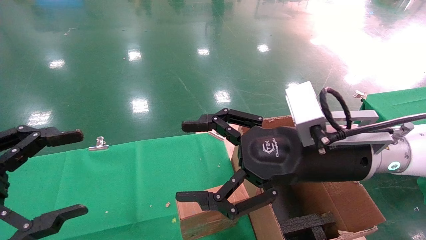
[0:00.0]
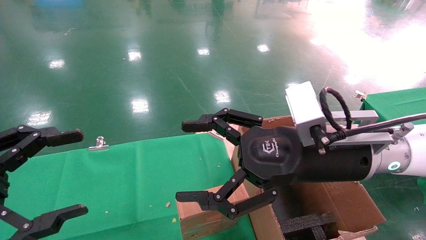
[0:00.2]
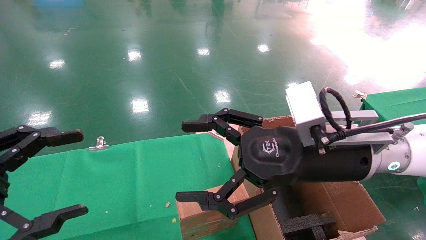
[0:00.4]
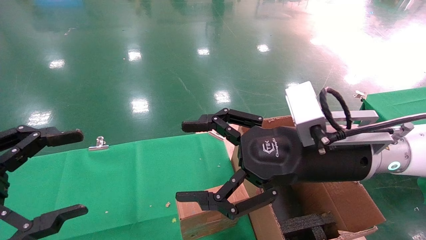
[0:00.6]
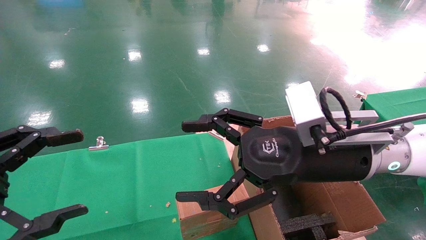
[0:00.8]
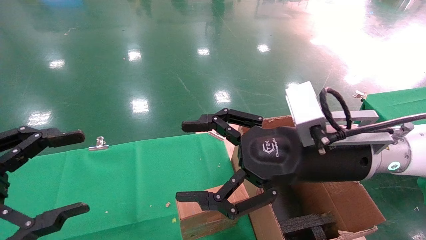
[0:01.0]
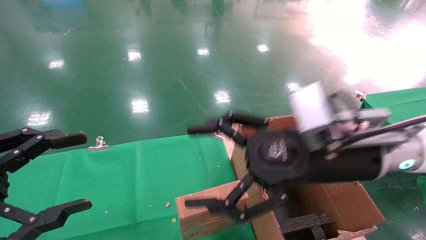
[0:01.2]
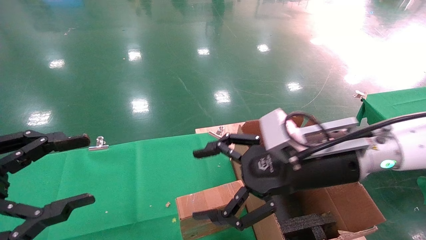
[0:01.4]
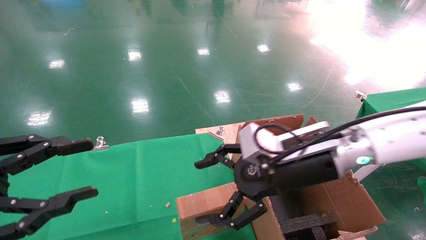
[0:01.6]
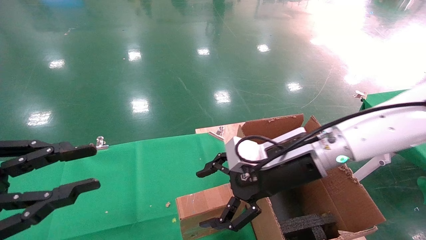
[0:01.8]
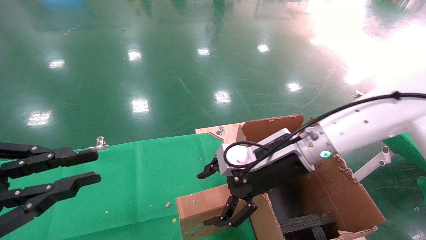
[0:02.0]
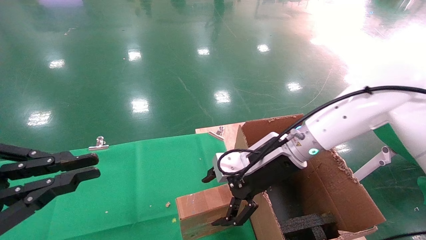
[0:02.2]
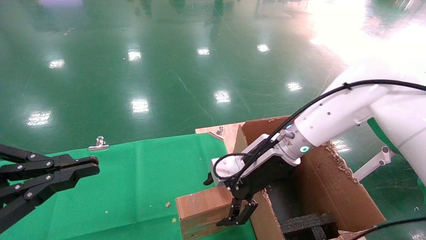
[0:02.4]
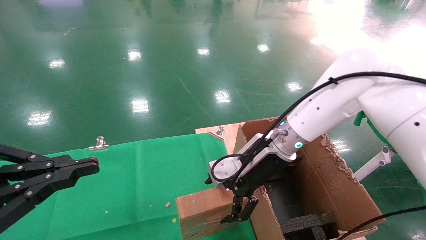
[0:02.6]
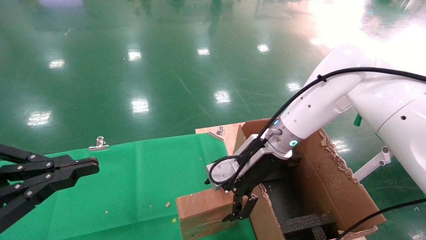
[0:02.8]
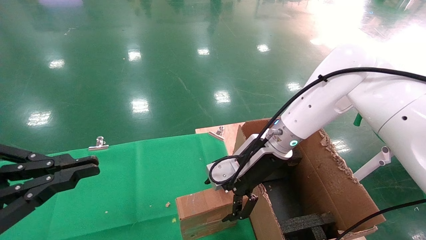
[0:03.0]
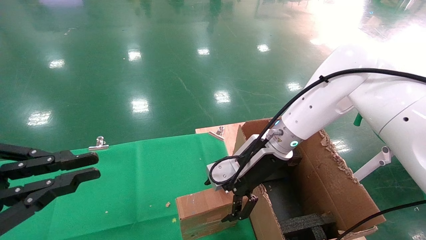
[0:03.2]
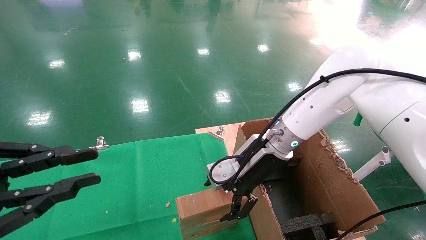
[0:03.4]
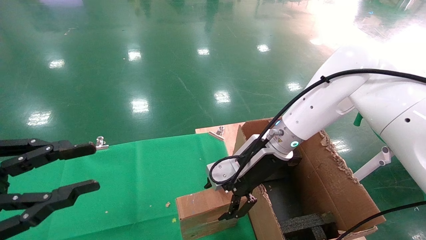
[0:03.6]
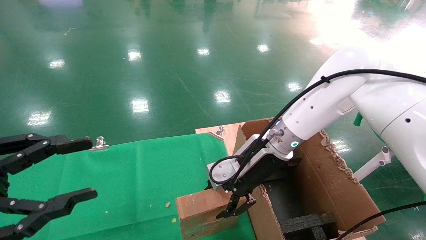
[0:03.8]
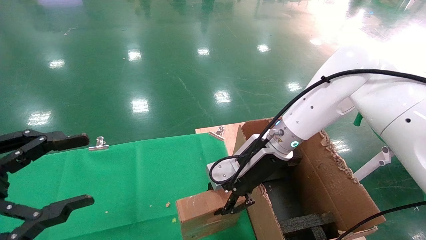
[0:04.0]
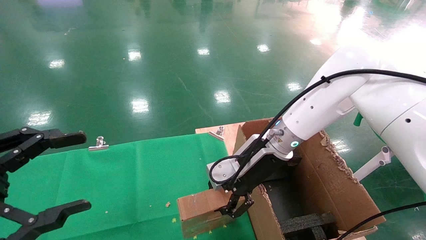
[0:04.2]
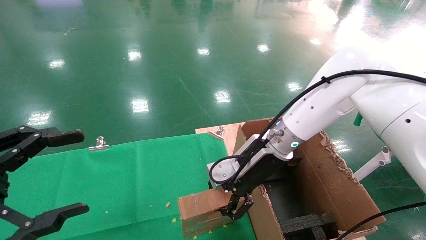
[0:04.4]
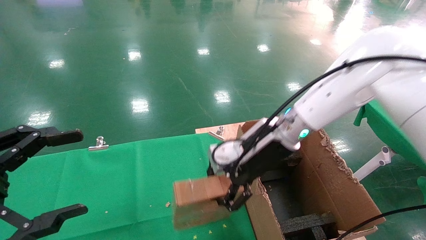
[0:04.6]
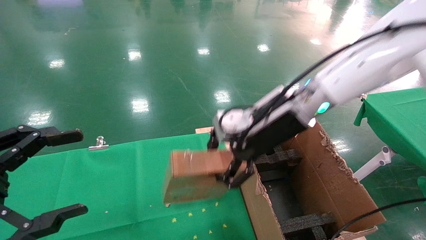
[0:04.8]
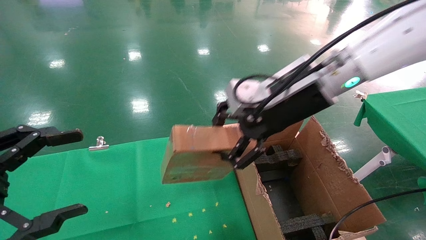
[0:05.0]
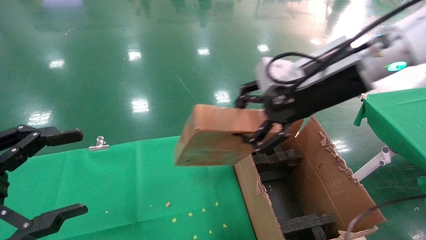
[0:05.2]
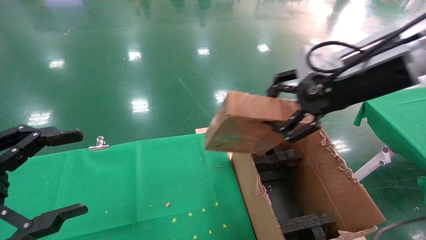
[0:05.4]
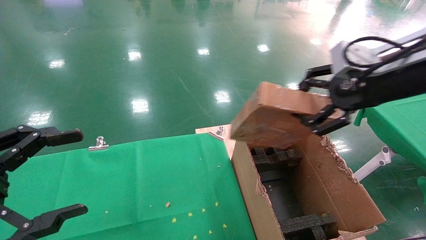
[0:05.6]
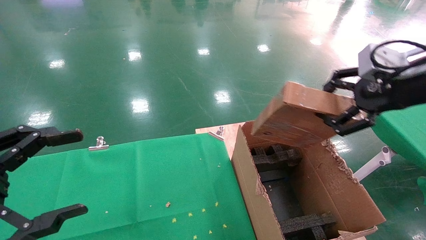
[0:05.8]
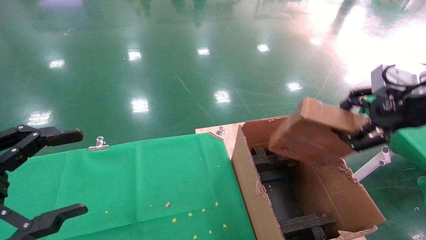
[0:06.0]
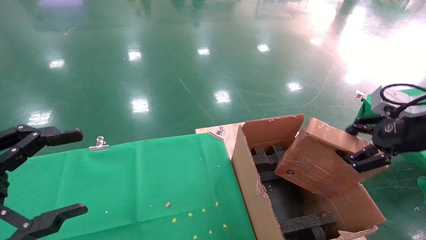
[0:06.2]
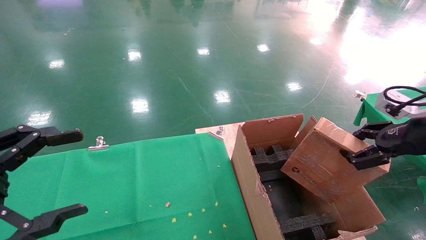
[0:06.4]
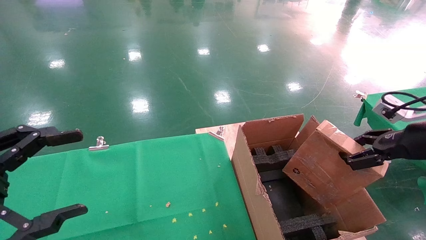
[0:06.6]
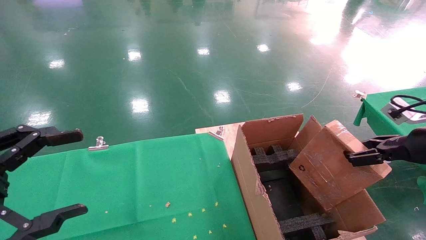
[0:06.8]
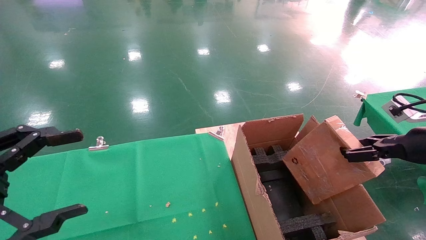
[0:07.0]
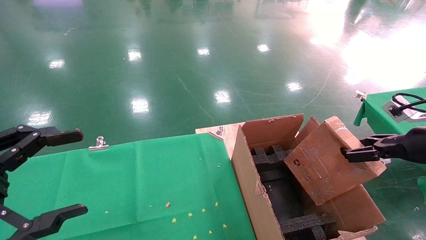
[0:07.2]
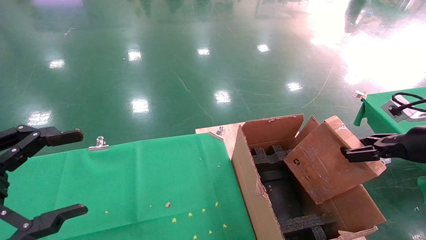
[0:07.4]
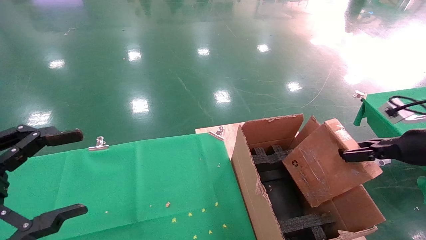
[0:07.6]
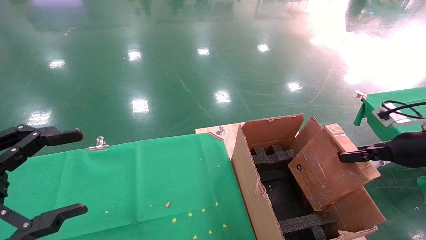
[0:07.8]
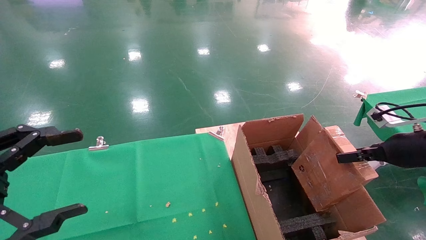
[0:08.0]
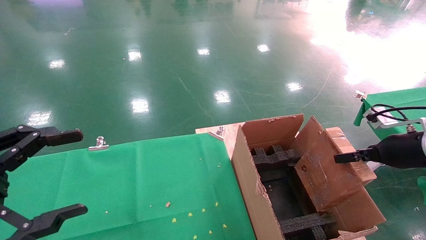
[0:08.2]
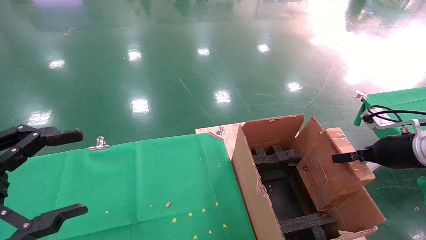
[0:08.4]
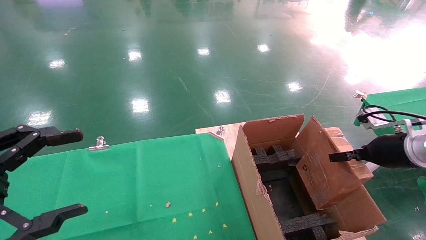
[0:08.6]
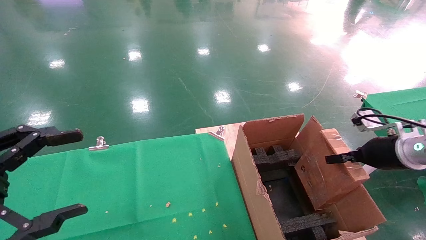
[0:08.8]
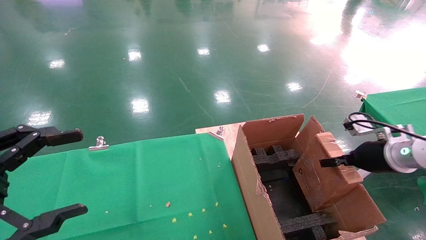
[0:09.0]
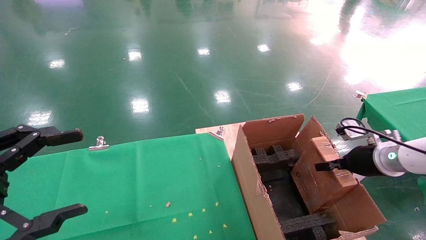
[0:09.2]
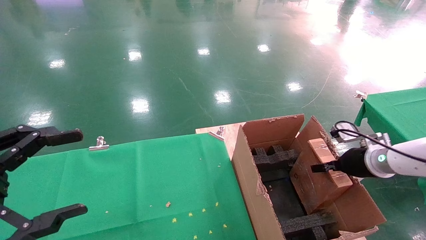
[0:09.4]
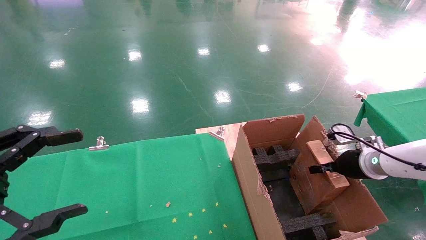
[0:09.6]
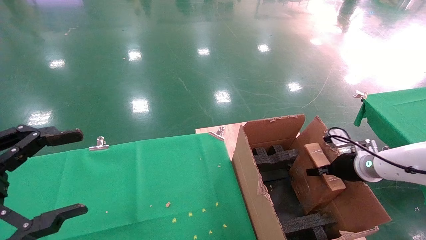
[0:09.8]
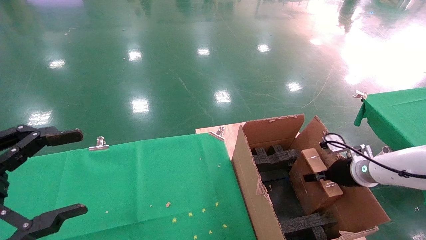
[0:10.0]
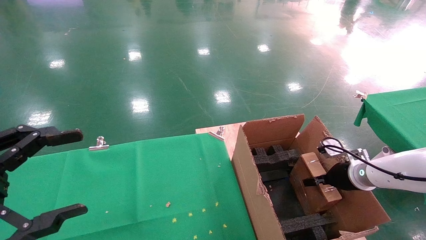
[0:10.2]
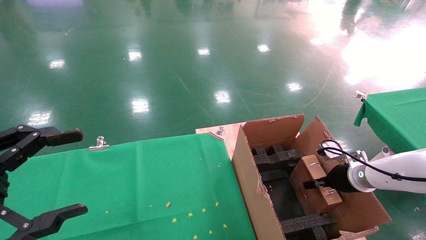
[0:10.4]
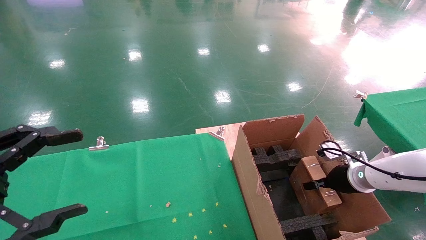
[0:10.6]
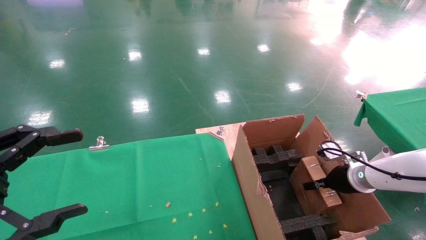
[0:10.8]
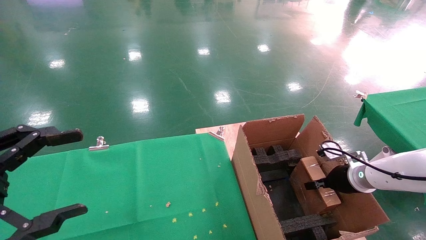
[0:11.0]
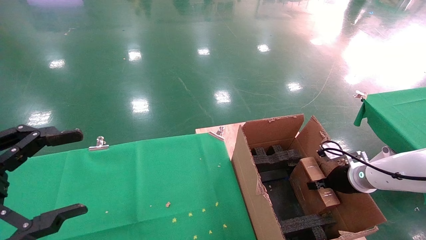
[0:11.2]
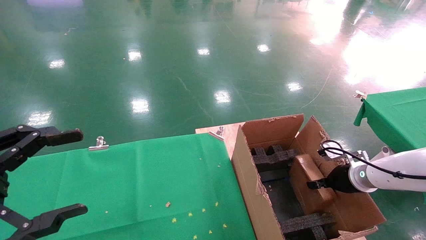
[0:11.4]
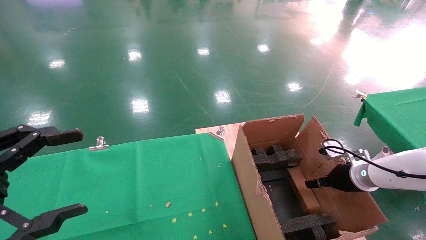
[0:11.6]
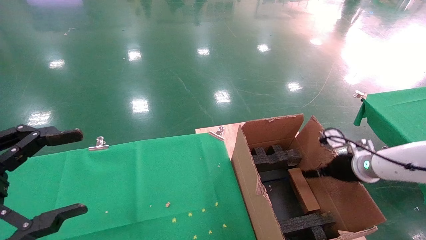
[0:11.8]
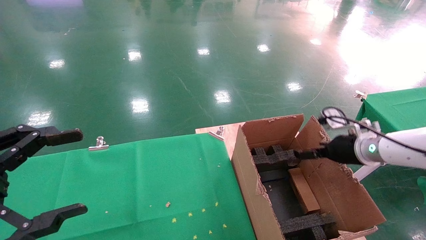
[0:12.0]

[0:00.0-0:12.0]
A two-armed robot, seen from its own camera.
Task of the whole recording: using a robotic arm to pick up a cardboard box and palace it the carton.
Step, 0:01.4 to 0:04.2: Pick up the mouse and the power cord paper box.
0:00.0 to 0:01.6: The right gripper moves approximately 5 cm.
0:01.6 to 0:03.0: The right gripper is displaced forward by about 10 cm. Meanwhile the left gripper closes its fingers.
0:03.0 to 0:04.4: The left gripper opens its fingers; the right gripper closes up.
0:04.4 to 0:06.0: The right gripper heads to the right, backward and upward, covering approximately 30 cm.
0:06.0 to 0:07.6: The right gripper is displaced downward and to the right by some 10 cm.
0:07.6 to 0:09.0: The right gripper goes approximately 10 cm forward, downward and to the left.
0:09.0 to 0:10.4: The right gripper travels downward by about 10 cm.
0:10.4 to 0:12.0: The right gripper travels upward by approximately 10 cm, and opens up.

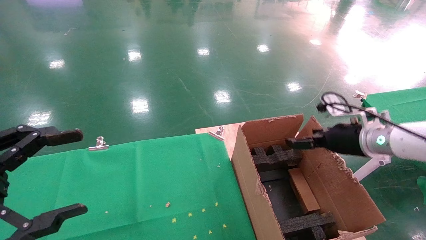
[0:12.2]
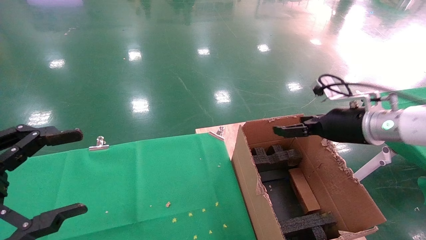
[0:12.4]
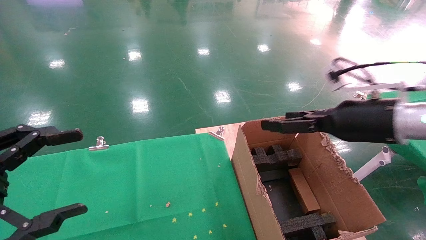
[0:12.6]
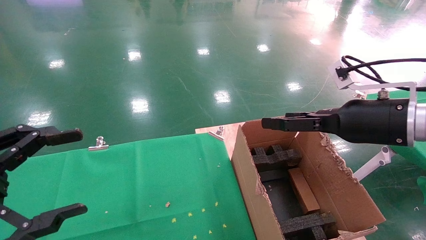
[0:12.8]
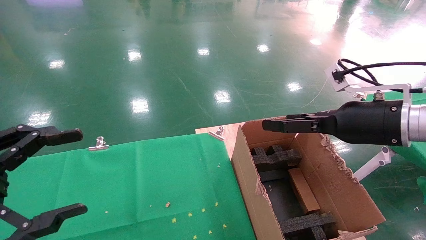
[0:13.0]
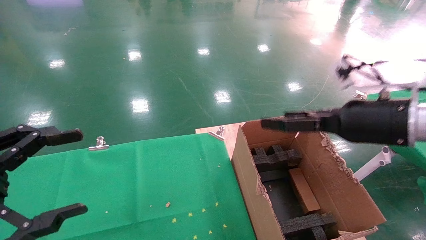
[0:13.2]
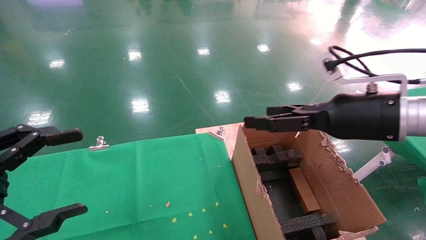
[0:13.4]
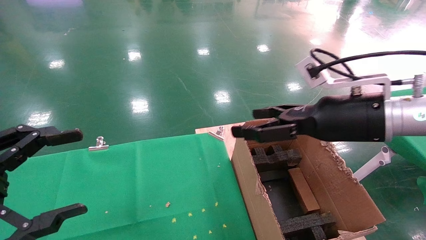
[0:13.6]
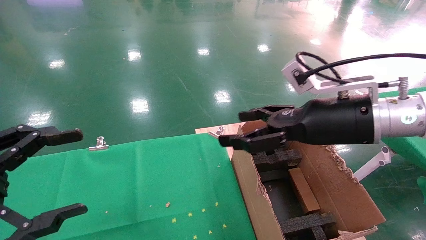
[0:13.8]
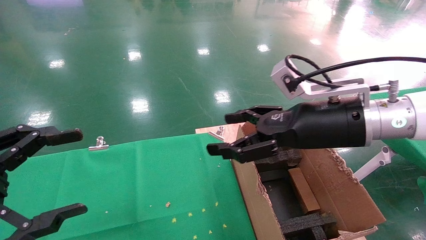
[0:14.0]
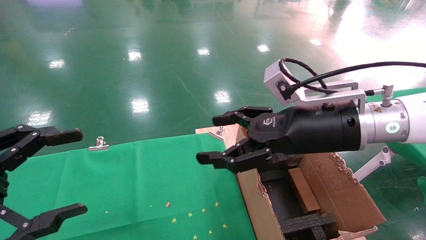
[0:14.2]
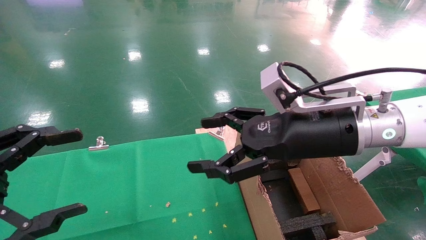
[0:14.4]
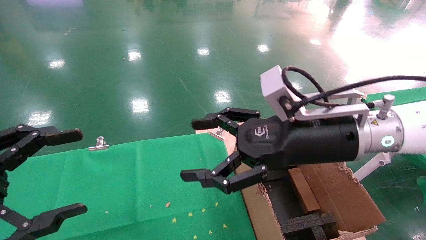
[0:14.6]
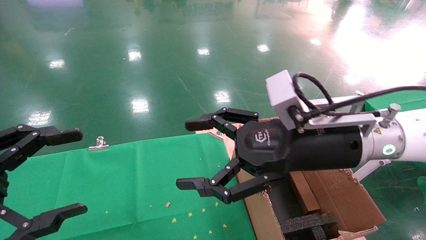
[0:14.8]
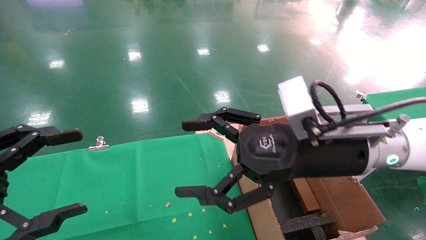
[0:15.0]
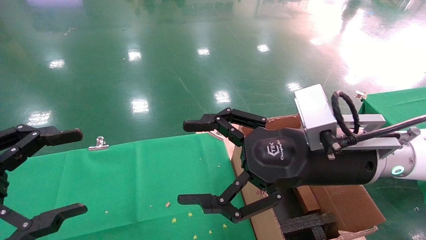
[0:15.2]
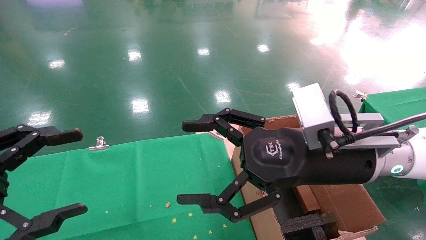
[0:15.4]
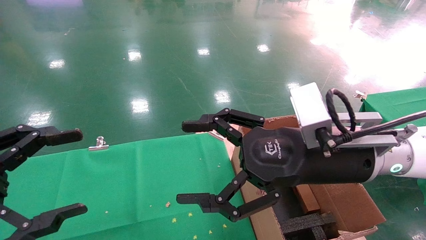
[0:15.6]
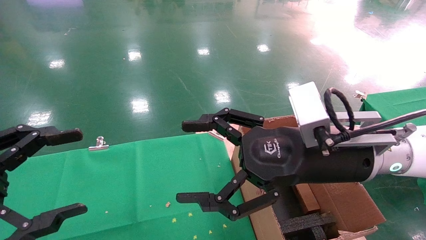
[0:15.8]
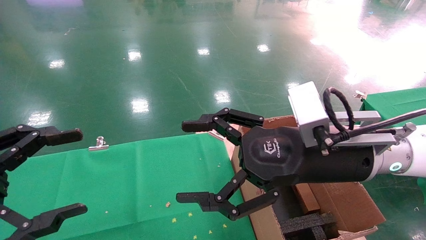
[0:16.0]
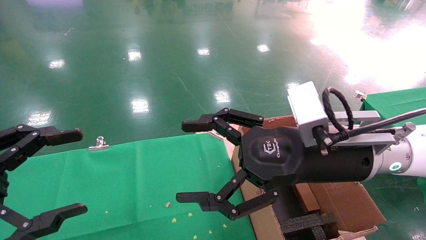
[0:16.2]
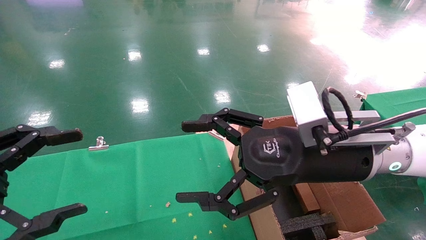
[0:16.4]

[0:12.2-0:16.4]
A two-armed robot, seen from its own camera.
Task of the whole recording: using a robotic arm to pick up a cardboard box and palace it the carton.
0:12.2 to 0:13.6: The right gripper goes about 10 cm to the left, upward and backward.
0:13.6 to 0:15.0: The right gripper shifts some 10 cm to the left.
0:15.0 to 0:16.4: Both grippers stay put.
